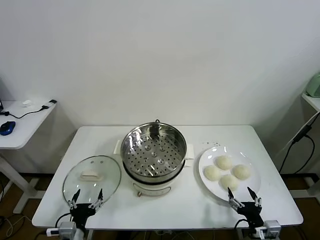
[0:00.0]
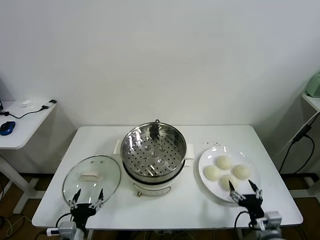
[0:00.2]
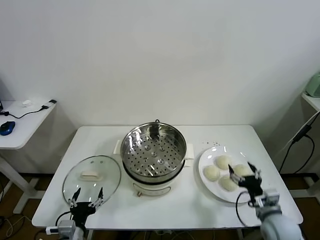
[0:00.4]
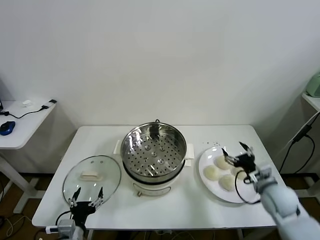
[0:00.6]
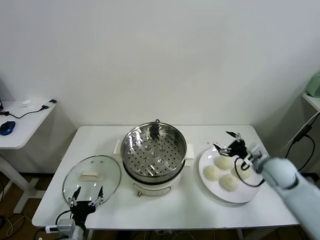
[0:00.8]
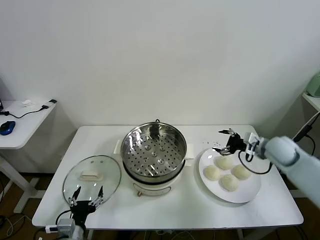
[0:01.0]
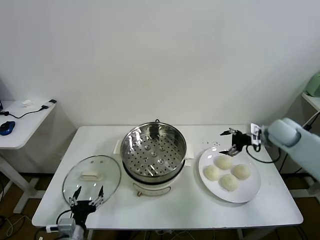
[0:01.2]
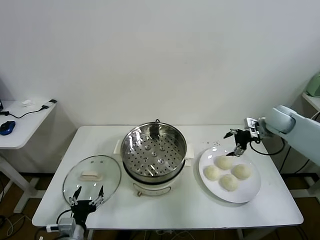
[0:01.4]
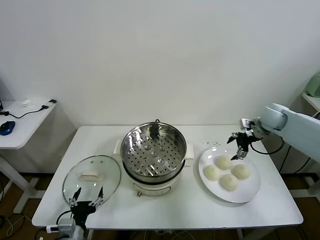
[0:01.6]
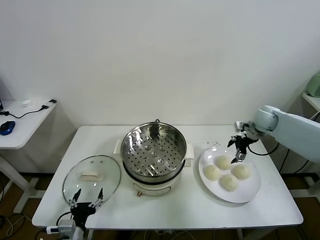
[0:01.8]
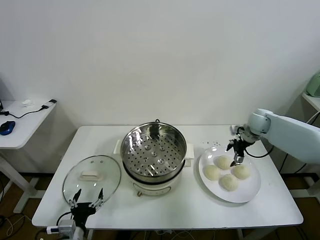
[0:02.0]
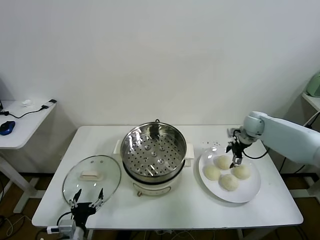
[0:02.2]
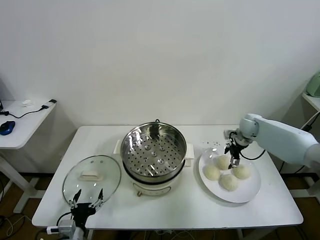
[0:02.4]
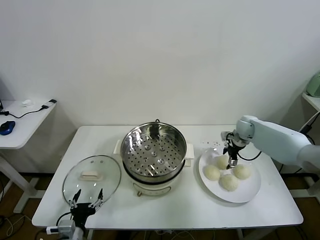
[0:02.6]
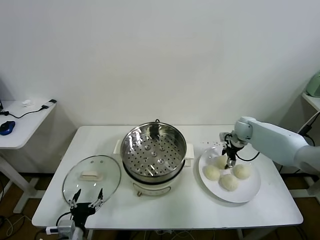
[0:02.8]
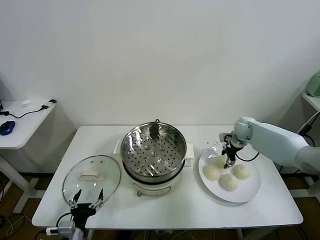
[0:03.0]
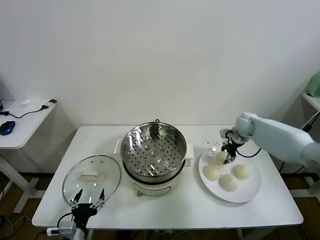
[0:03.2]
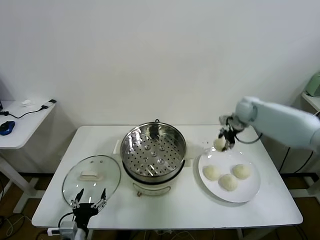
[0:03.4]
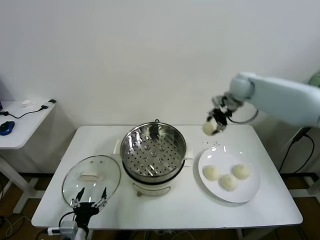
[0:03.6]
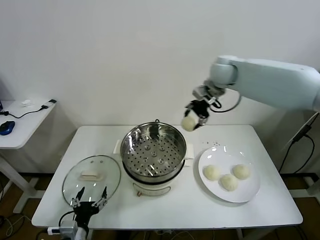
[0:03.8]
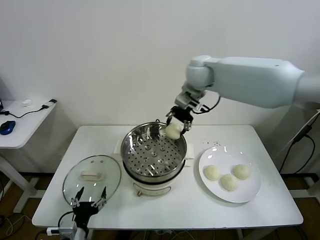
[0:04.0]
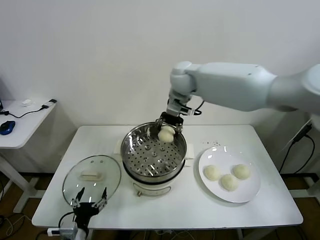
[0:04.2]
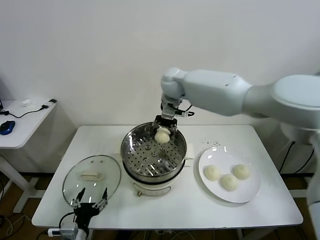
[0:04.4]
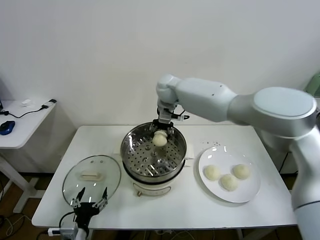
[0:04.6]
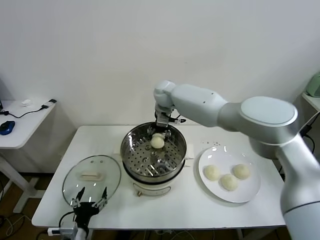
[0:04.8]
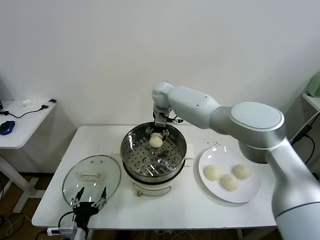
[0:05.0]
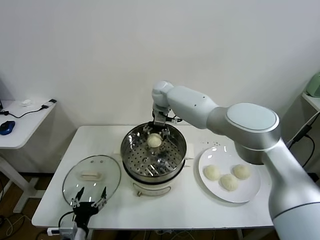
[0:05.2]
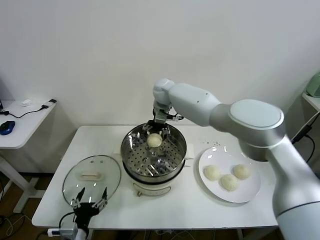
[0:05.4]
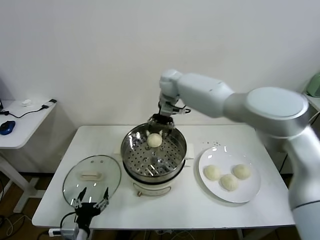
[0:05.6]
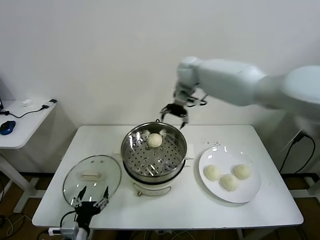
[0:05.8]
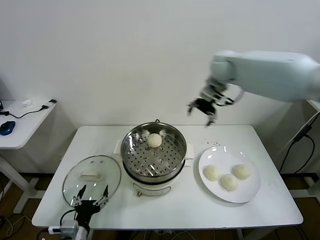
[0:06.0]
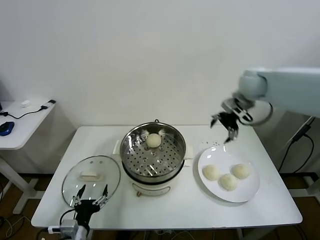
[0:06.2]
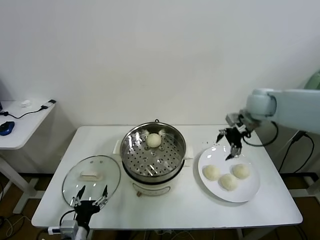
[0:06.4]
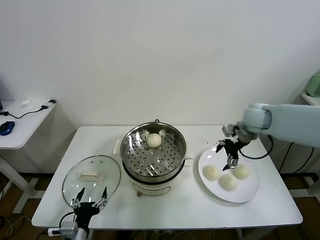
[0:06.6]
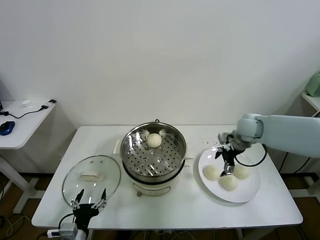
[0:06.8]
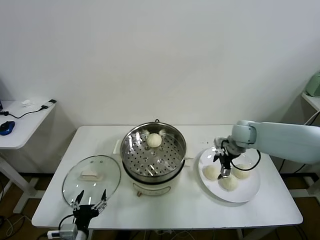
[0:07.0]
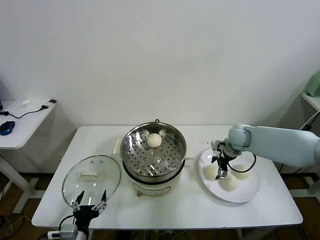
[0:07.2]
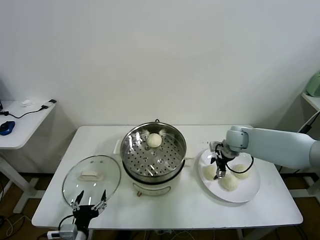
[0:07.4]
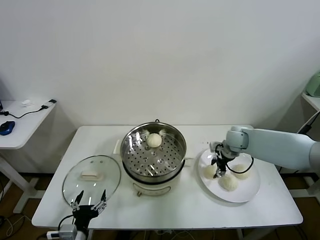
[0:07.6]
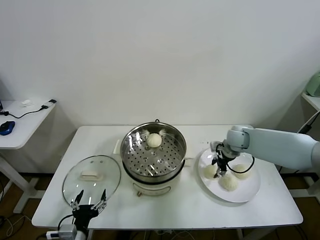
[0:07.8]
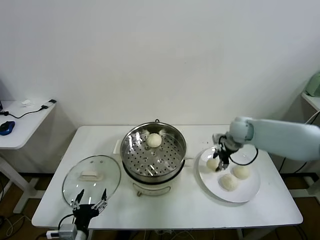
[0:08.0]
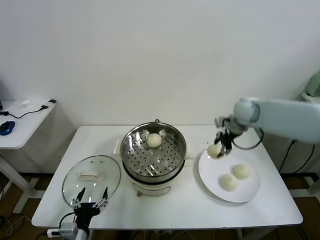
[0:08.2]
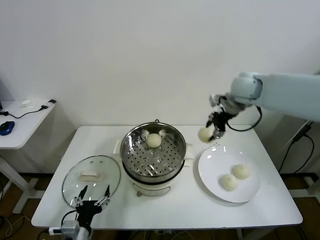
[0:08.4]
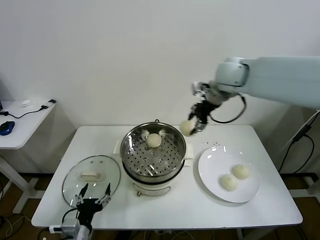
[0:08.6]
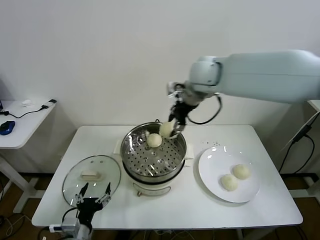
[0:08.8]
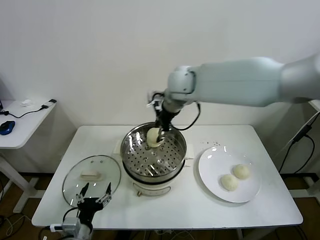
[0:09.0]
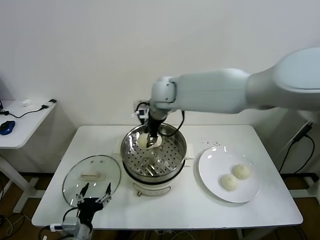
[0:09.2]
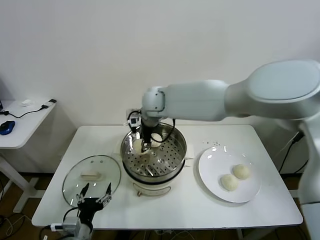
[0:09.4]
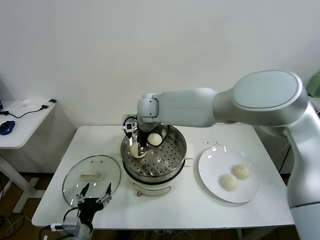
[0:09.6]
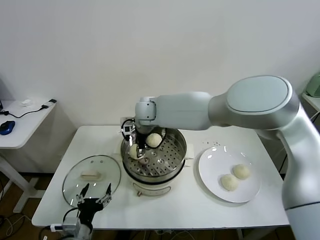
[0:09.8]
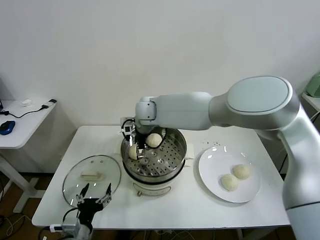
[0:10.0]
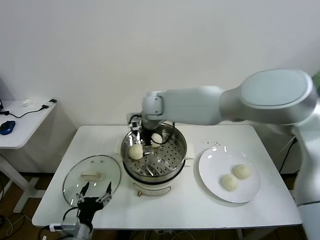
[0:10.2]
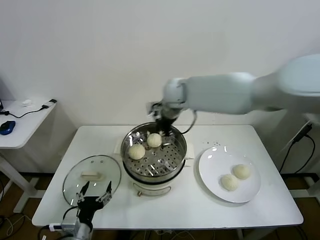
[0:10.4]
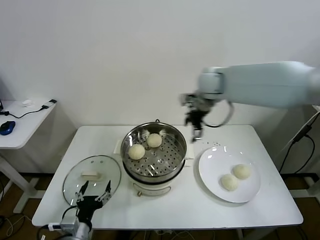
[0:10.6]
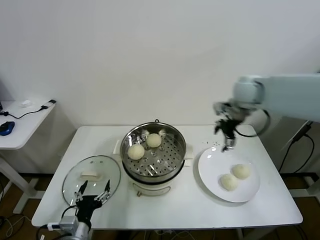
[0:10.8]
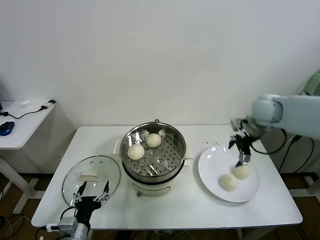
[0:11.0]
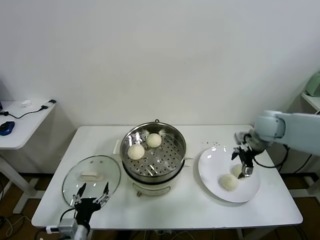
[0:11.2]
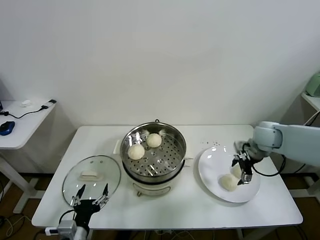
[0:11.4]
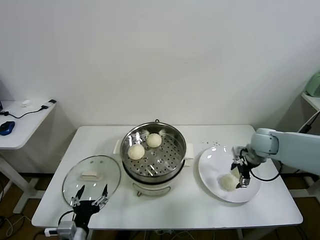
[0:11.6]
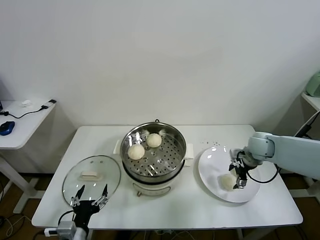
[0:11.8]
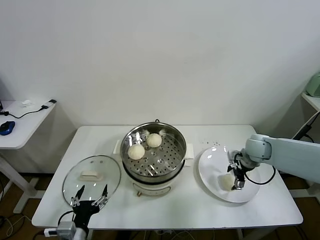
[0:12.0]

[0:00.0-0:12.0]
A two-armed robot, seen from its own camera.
Task of the whole recording: take steamed baozi put them in steamer.
Step, 0.0 to 2.8 s: Grasp the baozi in the plate with right gripper.
Step, 3.0 to 5.2 s: Place the baozi on the steamer with right gripper.
Step, 5.4 to 7.6 s: Grasp the baozi in the plate with right gripper.
Step, 7.8 to 10.0 s: Place the baozi on the steamer with right gripper.
1.6 to 3.0 s: The right gripper goes about 10 cm downward, and closes.
3.0 to 4.4 s: The right gripper heads to the left and upward, covering about 35 cm.
4.4 to 6.0 s: The right gripper travels to the right by roughly 25 cm, and opens.
6.0 to 7.6 s: The right gripper shifts approximately 25 cm downward, and closes its fingers.
7.6 to 9.0 s: The right gripper goes some 35 cm to the left and upward.
9.0 to 10.4 s: The right gripper shifts roughly 5 cm to the right, and opens its fingers.
10.4 to 12.0 s: The right gripper shifts approximately 35 cm to the right and downward.

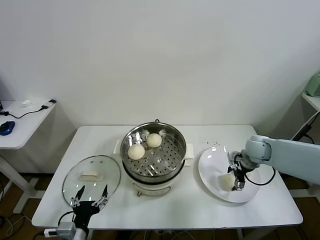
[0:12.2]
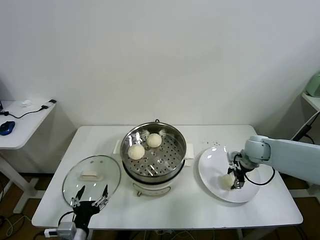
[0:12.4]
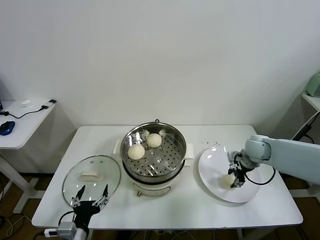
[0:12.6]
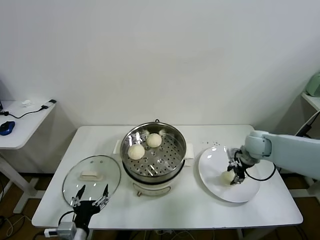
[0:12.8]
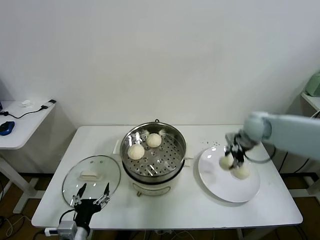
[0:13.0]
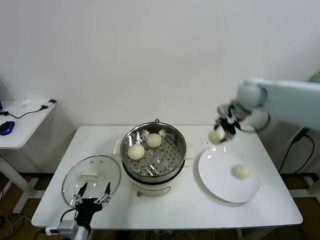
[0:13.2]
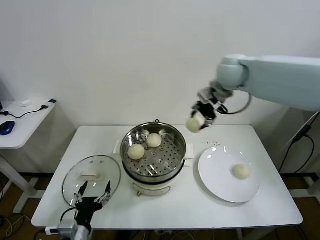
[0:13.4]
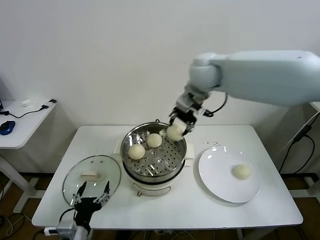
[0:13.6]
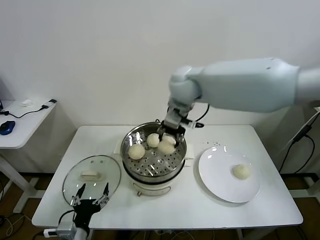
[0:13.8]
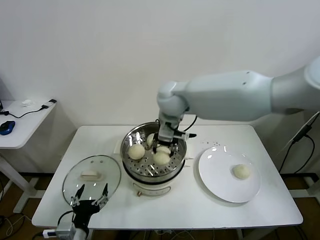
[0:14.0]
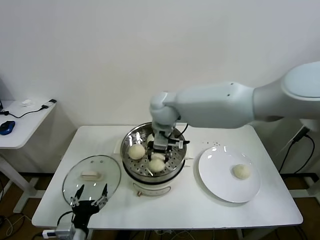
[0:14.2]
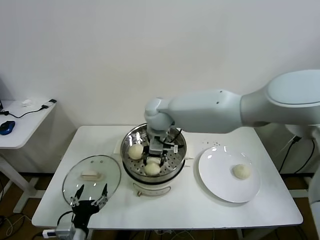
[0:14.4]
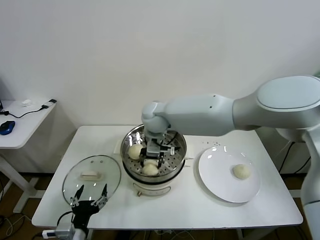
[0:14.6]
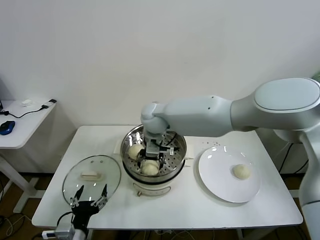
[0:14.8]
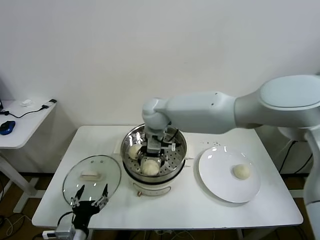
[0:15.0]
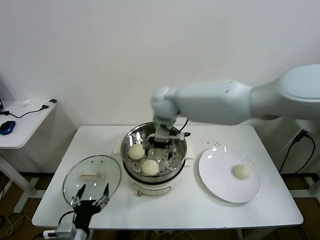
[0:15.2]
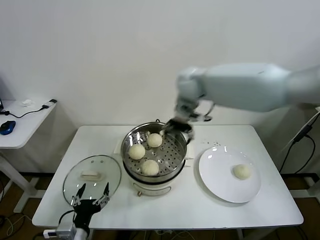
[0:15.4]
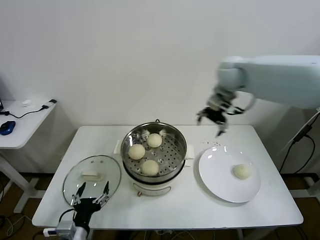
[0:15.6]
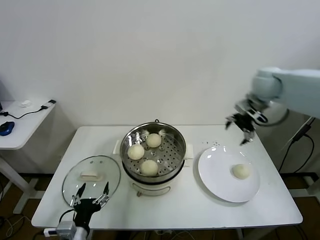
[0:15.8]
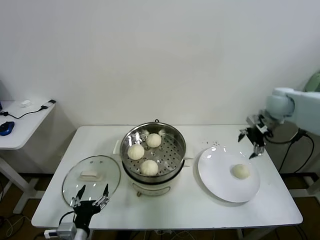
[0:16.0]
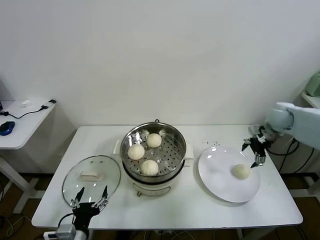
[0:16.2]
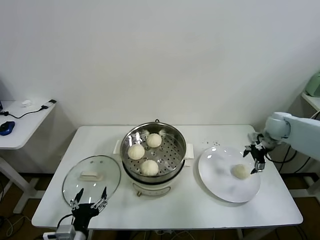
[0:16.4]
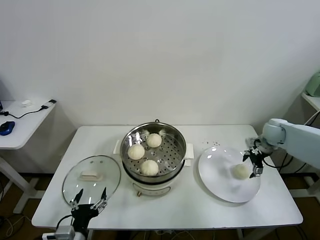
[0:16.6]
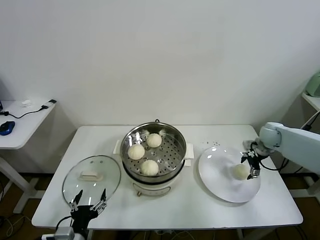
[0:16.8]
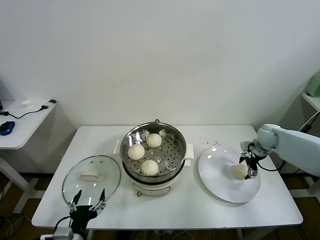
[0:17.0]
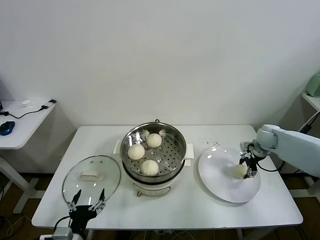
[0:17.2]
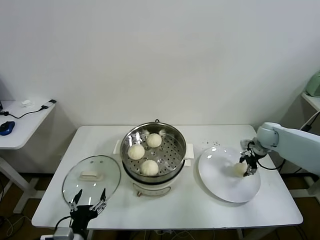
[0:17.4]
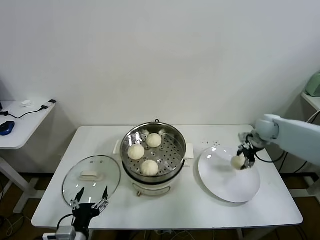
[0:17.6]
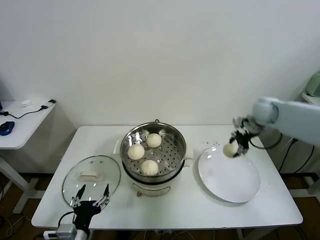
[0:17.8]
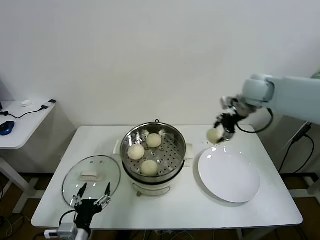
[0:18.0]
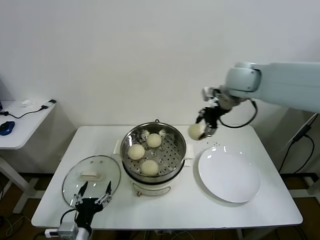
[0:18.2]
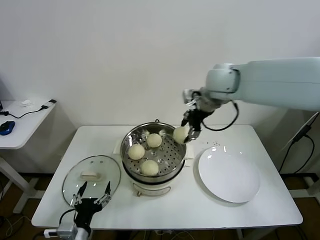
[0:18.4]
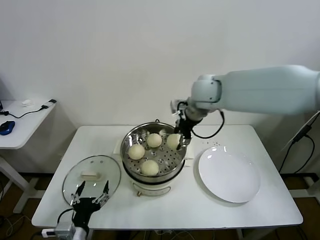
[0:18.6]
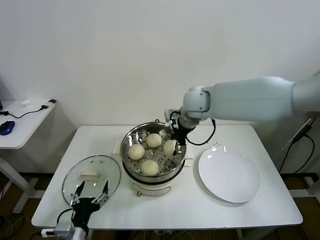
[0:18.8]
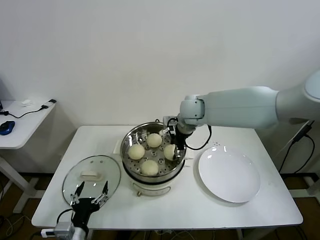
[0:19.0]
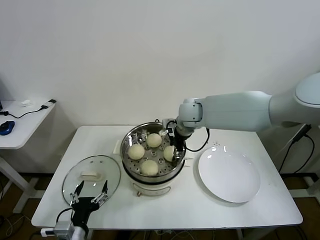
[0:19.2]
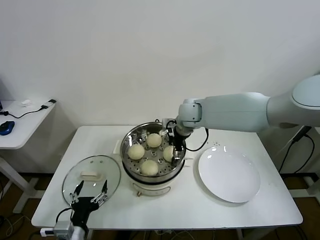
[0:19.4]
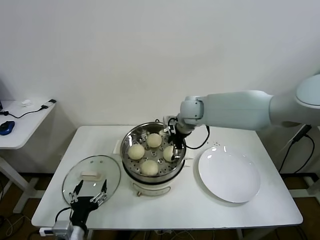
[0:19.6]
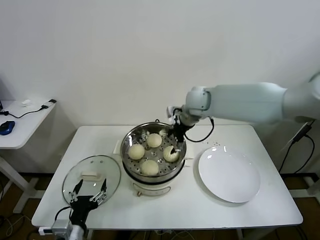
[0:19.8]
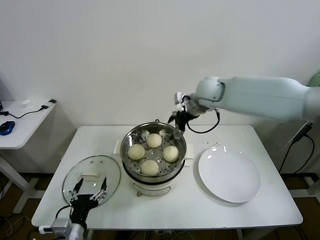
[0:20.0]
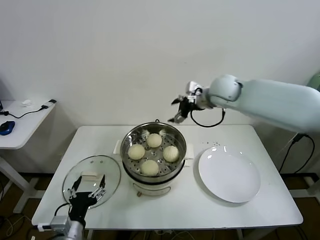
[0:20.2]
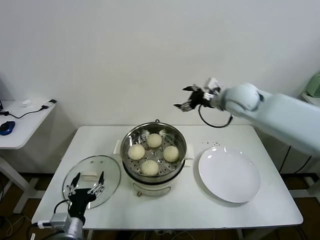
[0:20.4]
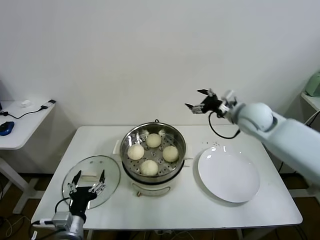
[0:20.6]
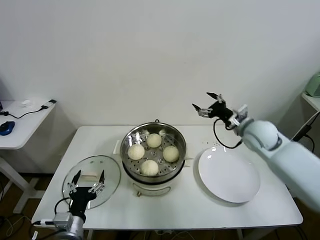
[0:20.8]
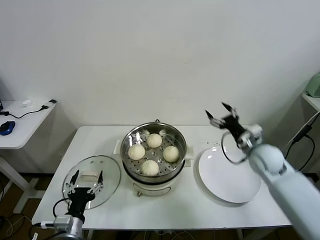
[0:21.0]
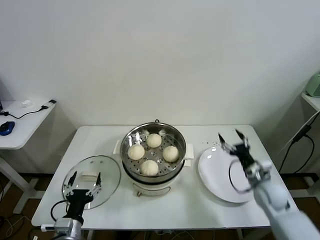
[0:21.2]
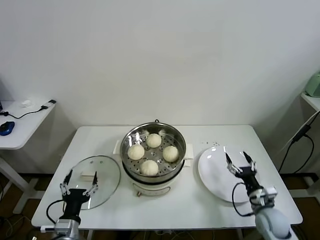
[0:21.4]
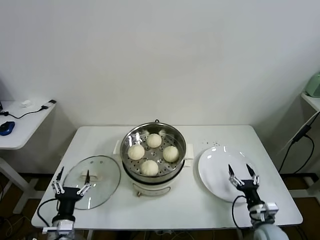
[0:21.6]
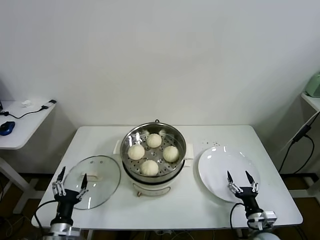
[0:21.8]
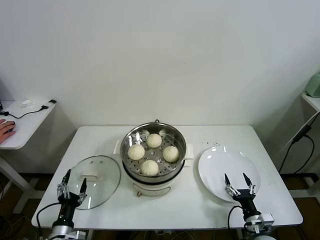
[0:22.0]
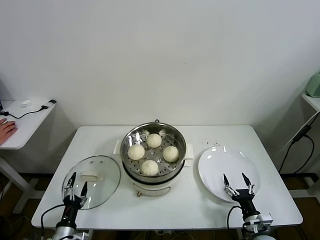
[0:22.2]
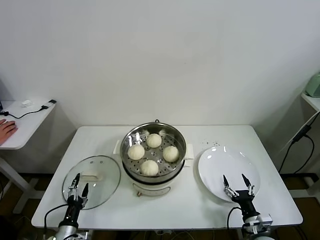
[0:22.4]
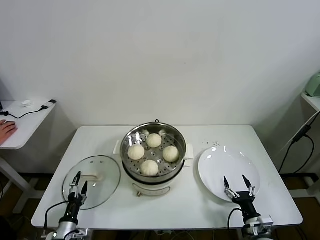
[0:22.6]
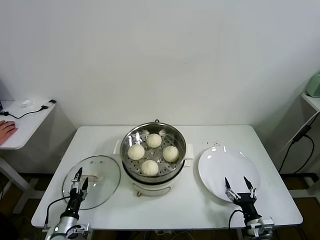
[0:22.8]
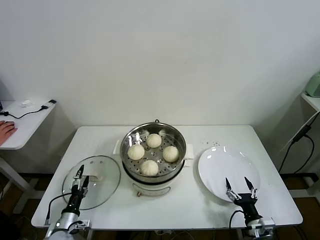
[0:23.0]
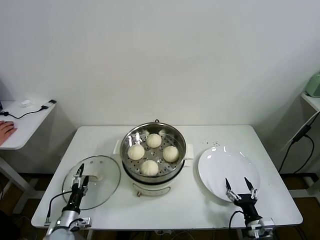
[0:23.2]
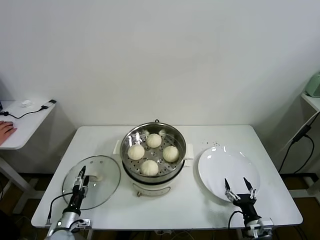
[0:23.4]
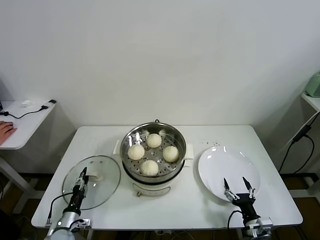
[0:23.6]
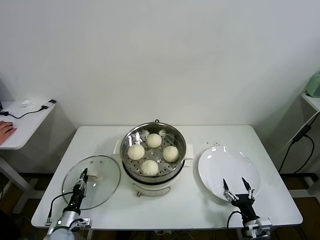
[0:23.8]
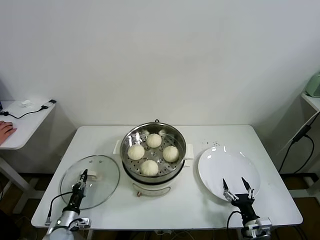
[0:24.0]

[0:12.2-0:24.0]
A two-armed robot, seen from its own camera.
Task of the whole recording: take steamed baozi put them in steamer.
Step, 12.4 to 15.0 s: Place the baozi on the steamer with right gripper.
Step, 15.2 to 17.2 s: Grasp the baozi in the plate with right gripper.
Step, 17.6 to 19.6 s: Place the baozi on the steamer with right gripper.
Step, 19.8 to 24.0 s: Grasp the pot lid with left gripper.
12.2 to 13.6 s: The right gripper heads upward and to the left, covering roughly 35 cm, and closes its fingers.
13.6 to 15.2 s: The right gripper goes about 15 cm downward and to the left, and opens.
15.2 to 16.6 s: The right gripper is displaced to the right by some 40 cm.
16.6 to 18.2 s: The right gripper is displaced upward and to the left by about 30 cm, and closes up.
18.2 to 19.6 s: The right gripper goes about 20 cm downward and to the left, and opens.
19.6 to 21.0 s: The right gripper goes approximately 30 cm to the right, backward and downward.
21.0 to 22.6 s: The left gripper goes some 15 cm downward and to the left; the right gripper goes about 30 cm backward and downward.
22.6 to 24.0 s: The left gripper moves roughly 5 cm, and closes up.
